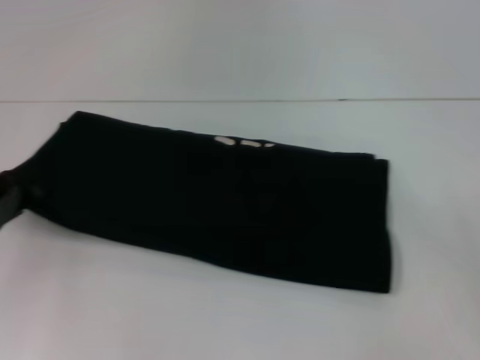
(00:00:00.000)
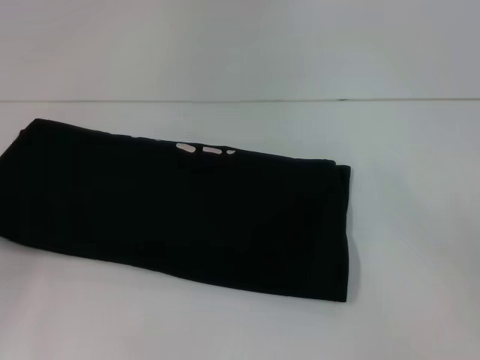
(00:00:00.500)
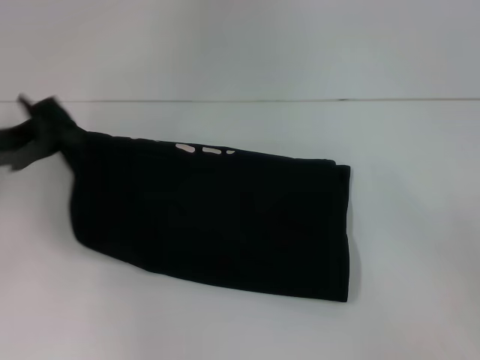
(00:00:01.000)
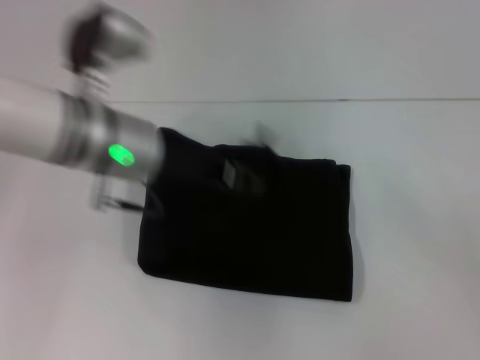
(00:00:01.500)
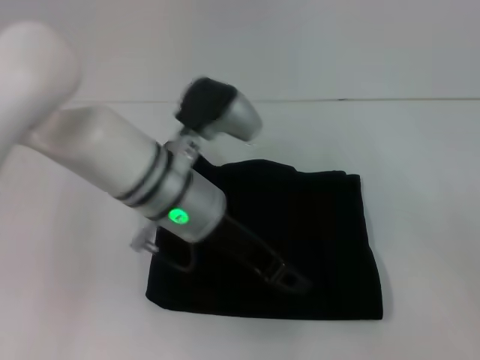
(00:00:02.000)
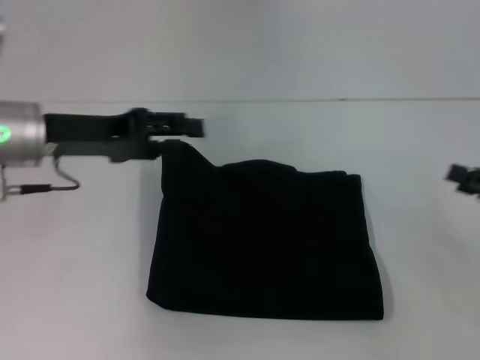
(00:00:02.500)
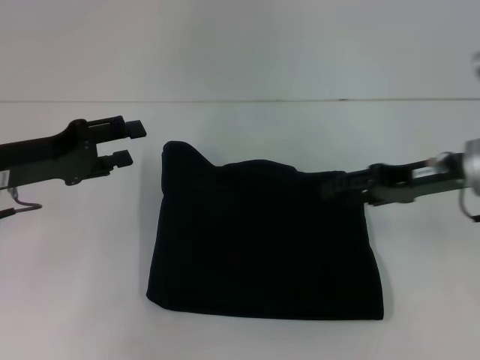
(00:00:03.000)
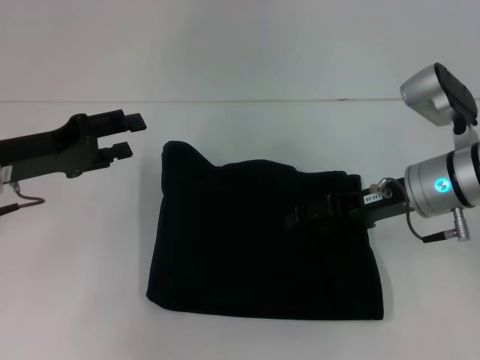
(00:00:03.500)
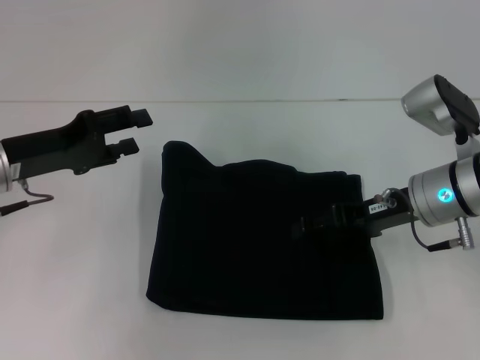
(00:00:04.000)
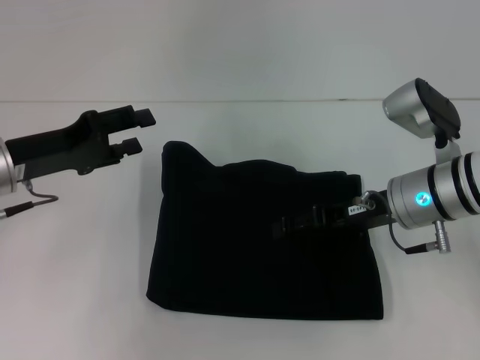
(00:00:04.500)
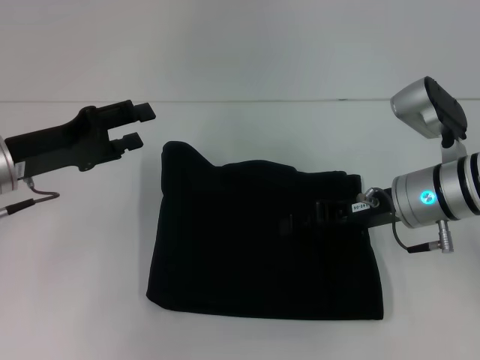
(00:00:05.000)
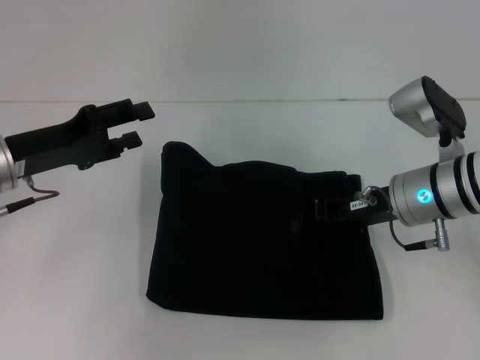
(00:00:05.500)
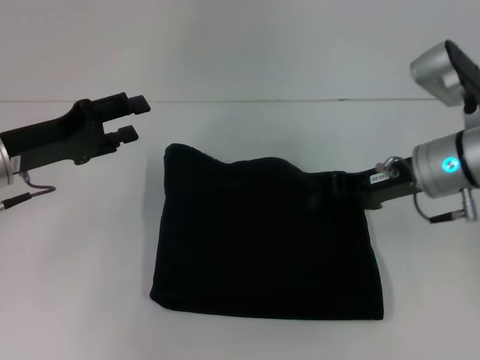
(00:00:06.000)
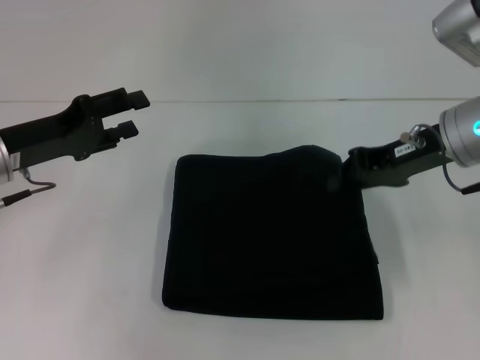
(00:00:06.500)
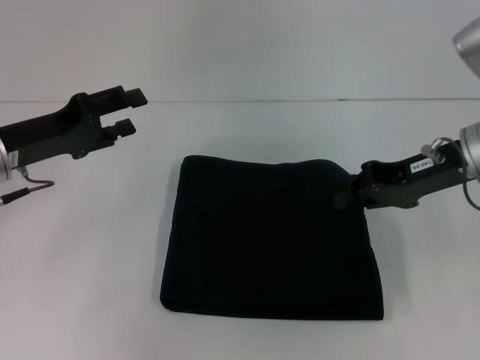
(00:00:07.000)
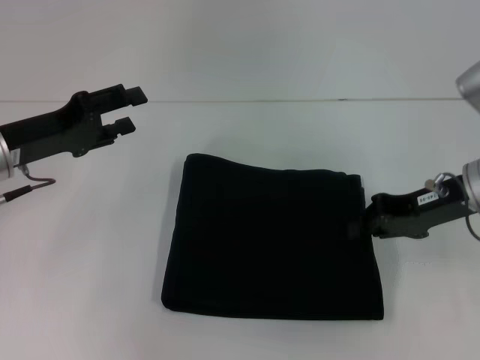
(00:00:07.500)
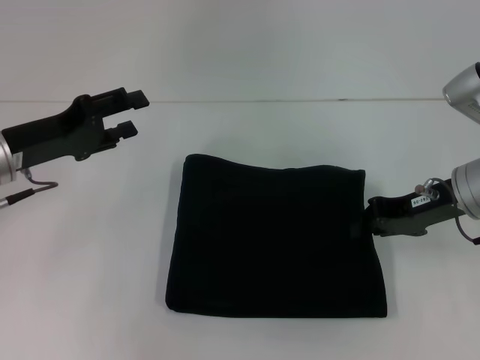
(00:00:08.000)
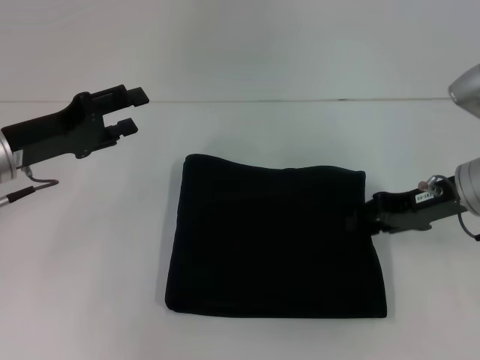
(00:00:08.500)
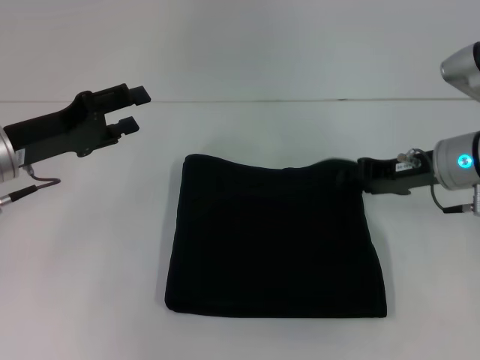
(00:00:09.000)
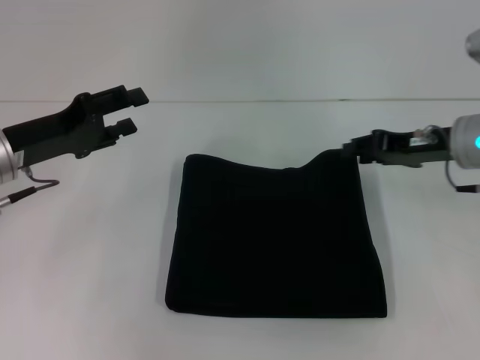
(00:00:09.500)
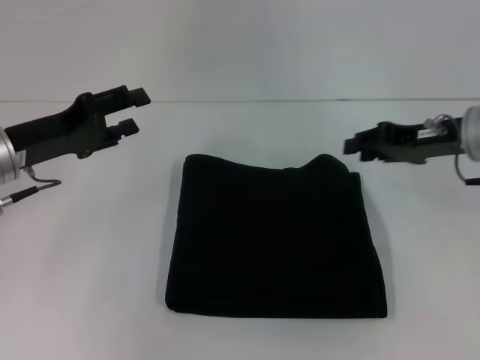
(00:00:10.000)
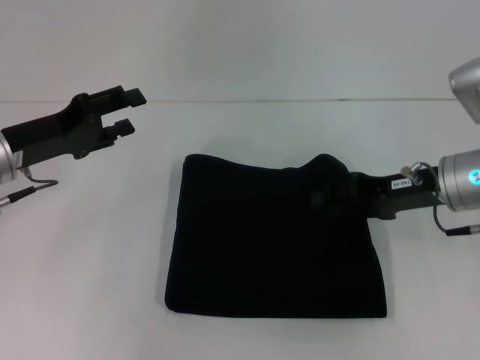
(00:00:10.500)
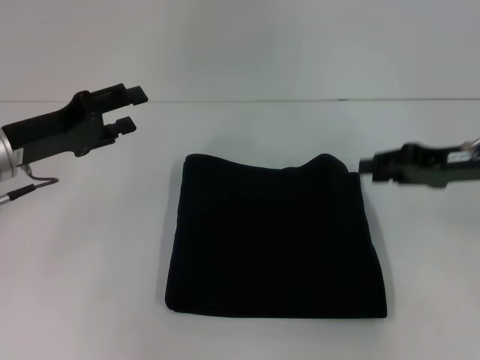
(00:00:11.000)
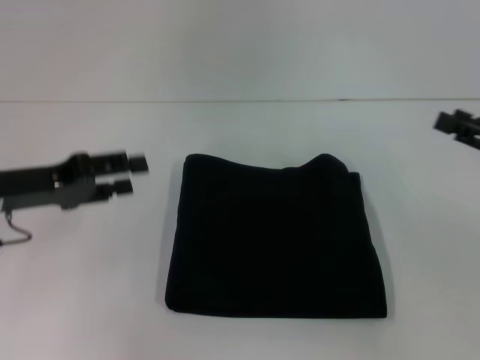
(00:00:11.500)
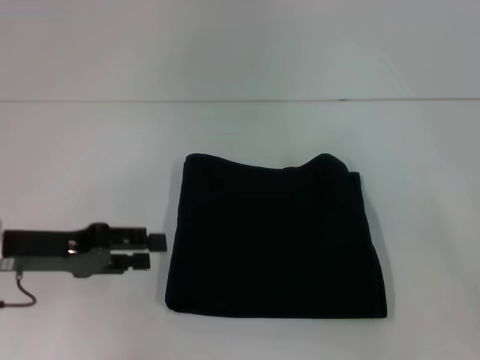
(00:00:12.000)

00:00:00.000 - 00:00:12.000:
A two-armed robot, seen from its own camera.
Step, 00:00:00.000 - 00:00:02.000: Fold the clothes with your left hand.
00:00:00.000 - 00:00:02.000: The left gripper travels to the right by approximately 25 cm.
00:00:02.000 - 00:00:04.000: The left gripper moves to the left, some 20 cm, and opens, while the right gripper travels to the left and forward by some 25 cm.
00:00:04.000 - 00:00:06.000: The right gripper closes up.
00:00:06.000 - 00:00:08.000: The grippers make only small movements.
00:00:08.000 - 00:00:10.000: The right gripper opens its fingers.
00:00:10.000 - 00:00:12.000: The left gripper travels backward by approximately 5 cm. The right gripper travels backward and to the right by about 20 cm, and opens up.

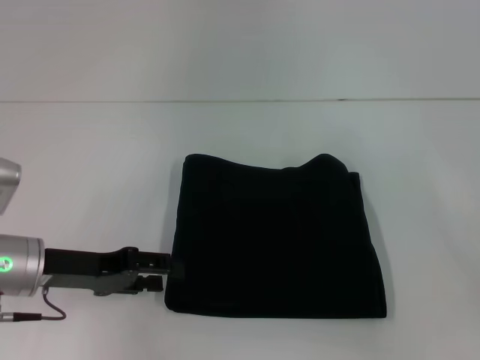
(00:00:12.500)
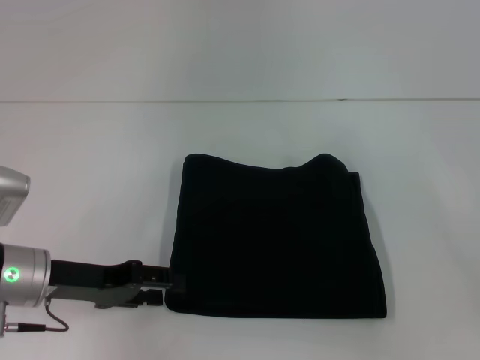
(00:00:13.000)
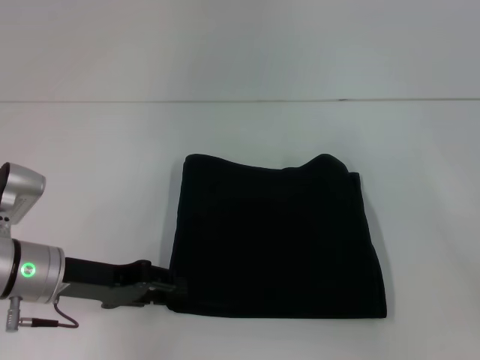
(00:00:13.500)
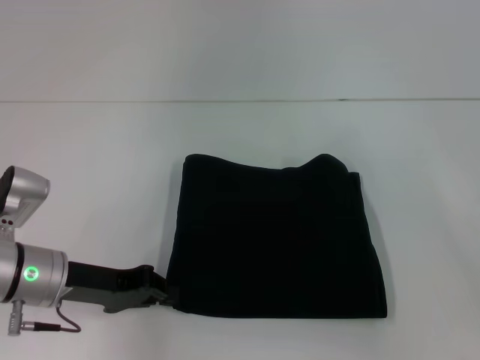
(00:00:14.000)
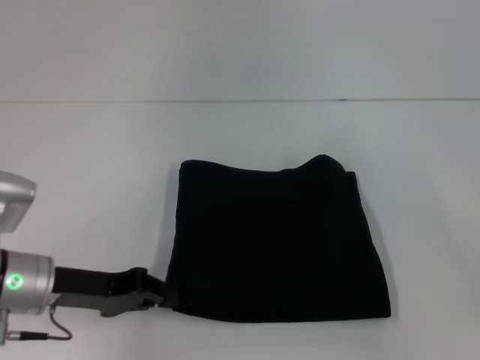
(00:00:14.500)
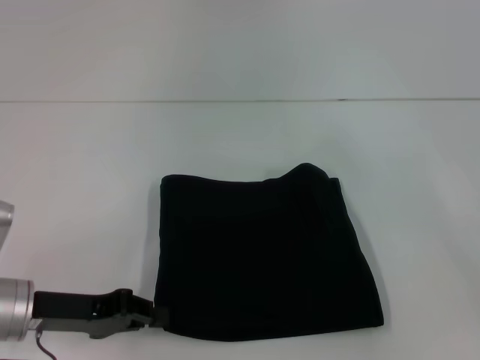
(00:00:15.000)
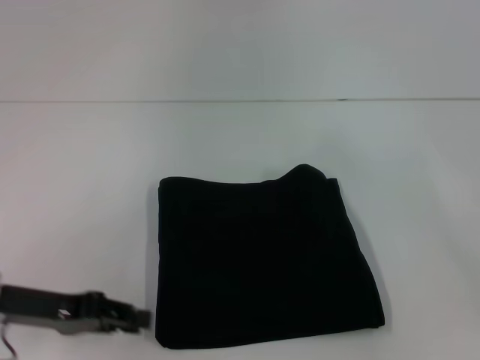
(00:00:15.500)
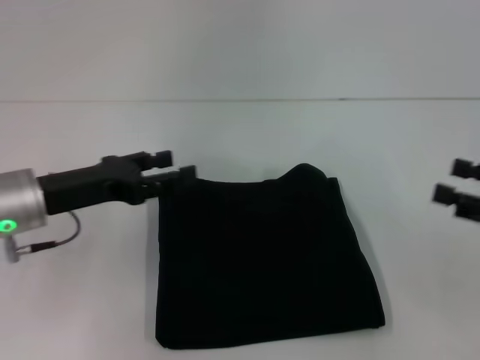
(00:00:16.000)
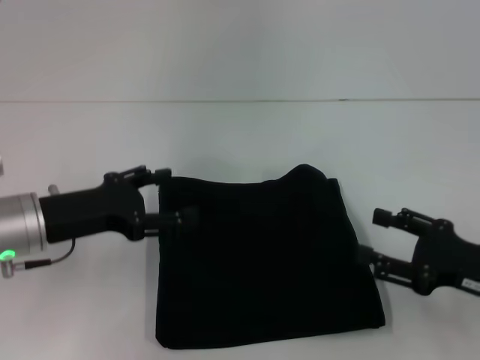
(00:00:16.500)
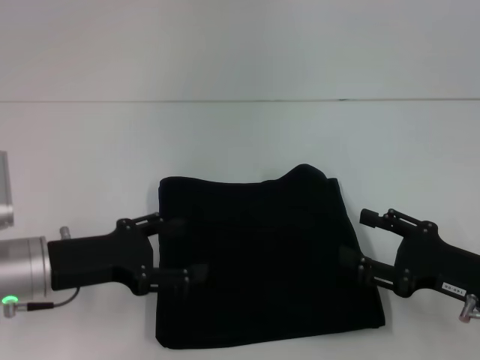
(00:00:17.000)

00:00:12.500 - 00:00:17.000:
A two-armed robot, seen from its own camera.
00:00:12.500 - 00:00:14.500: The left gripper closes up.
00:00:14.500 - 00:00:17.000: The right gripper shifts approximately 15 cm to the left and downward, while the left gripper opens.
